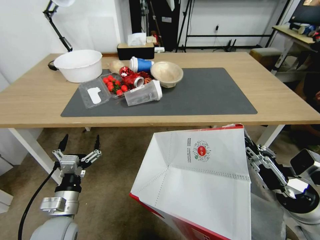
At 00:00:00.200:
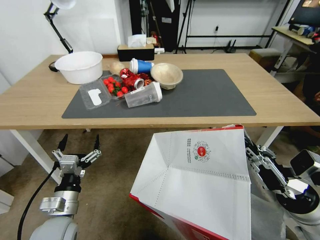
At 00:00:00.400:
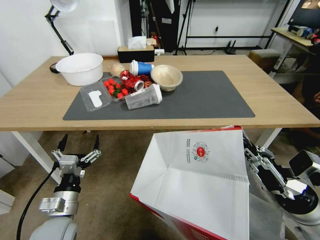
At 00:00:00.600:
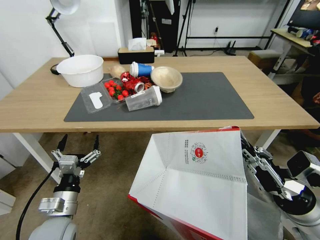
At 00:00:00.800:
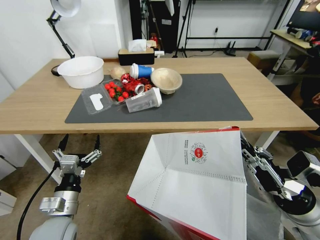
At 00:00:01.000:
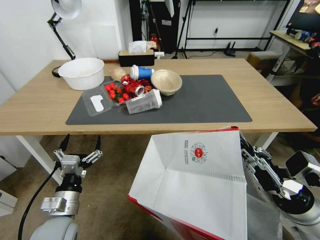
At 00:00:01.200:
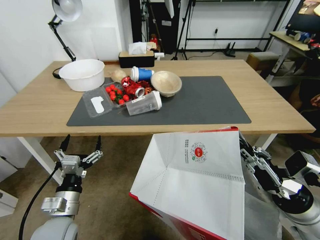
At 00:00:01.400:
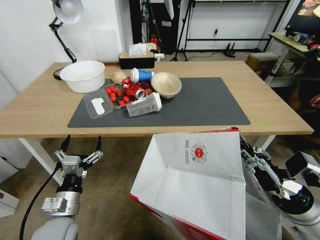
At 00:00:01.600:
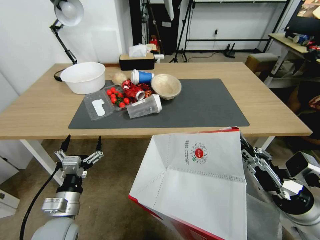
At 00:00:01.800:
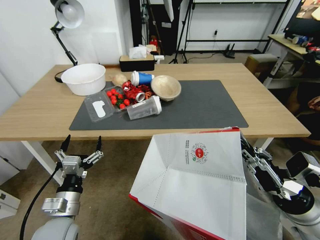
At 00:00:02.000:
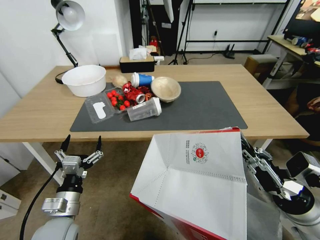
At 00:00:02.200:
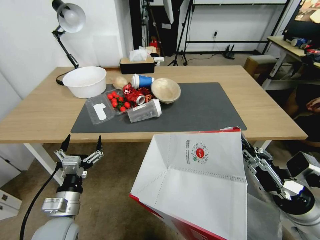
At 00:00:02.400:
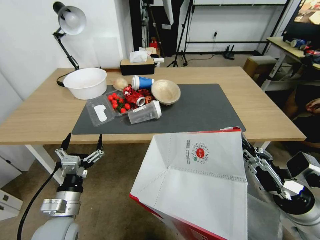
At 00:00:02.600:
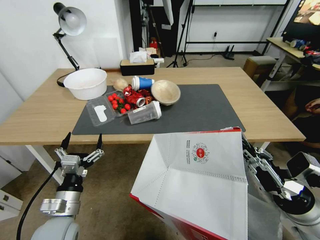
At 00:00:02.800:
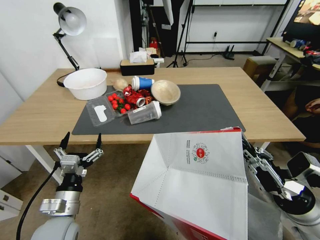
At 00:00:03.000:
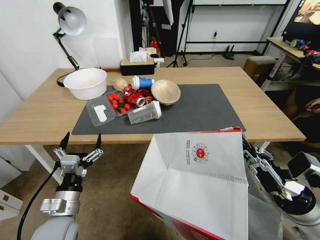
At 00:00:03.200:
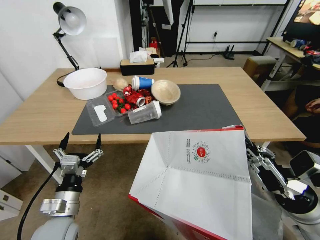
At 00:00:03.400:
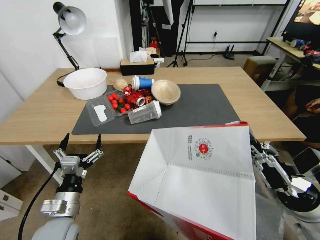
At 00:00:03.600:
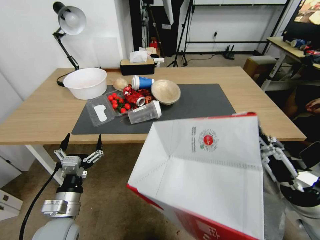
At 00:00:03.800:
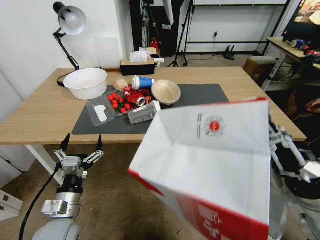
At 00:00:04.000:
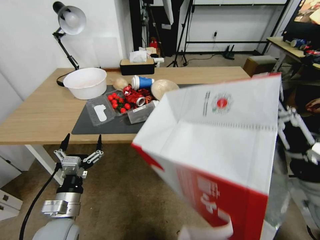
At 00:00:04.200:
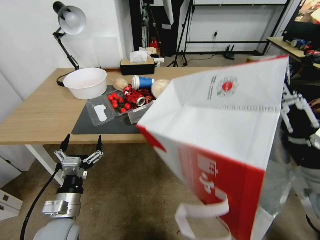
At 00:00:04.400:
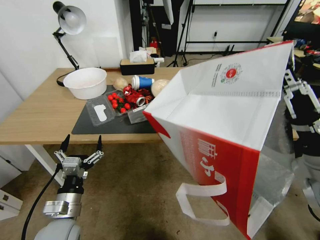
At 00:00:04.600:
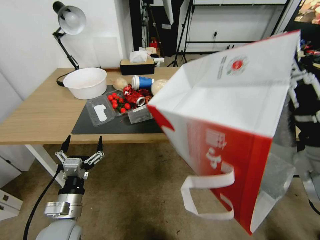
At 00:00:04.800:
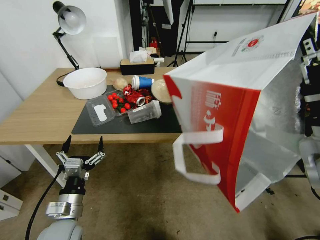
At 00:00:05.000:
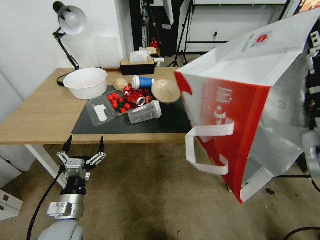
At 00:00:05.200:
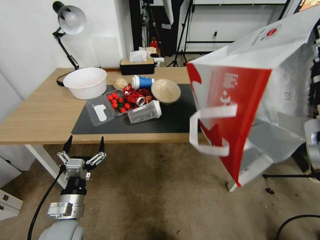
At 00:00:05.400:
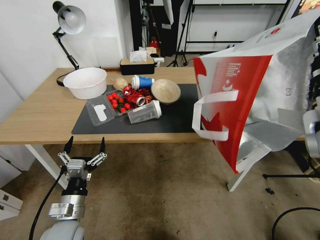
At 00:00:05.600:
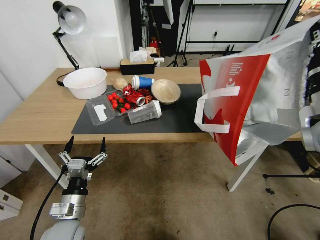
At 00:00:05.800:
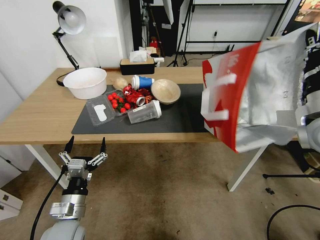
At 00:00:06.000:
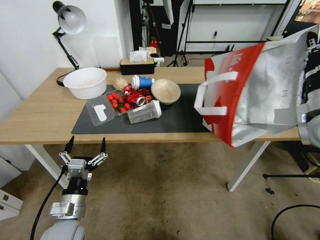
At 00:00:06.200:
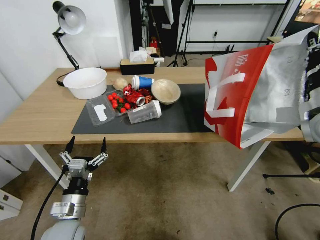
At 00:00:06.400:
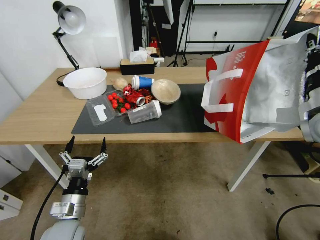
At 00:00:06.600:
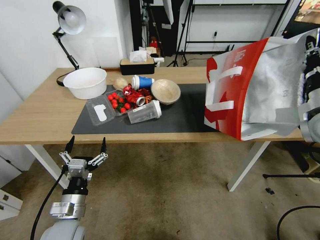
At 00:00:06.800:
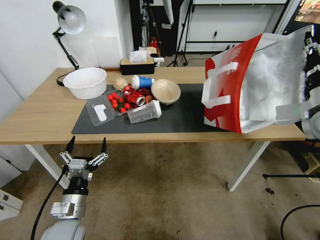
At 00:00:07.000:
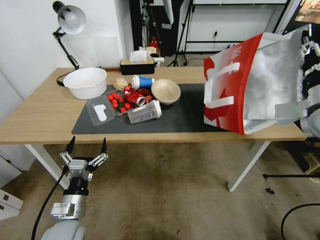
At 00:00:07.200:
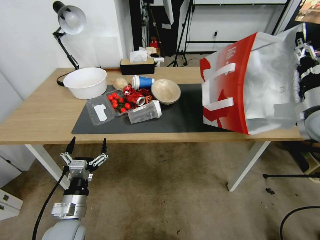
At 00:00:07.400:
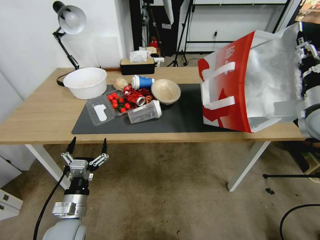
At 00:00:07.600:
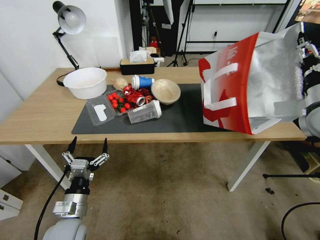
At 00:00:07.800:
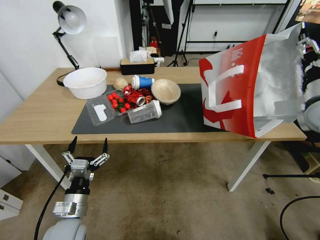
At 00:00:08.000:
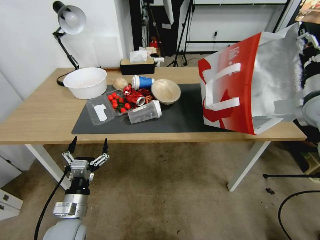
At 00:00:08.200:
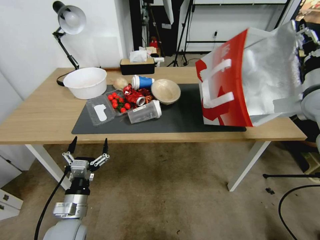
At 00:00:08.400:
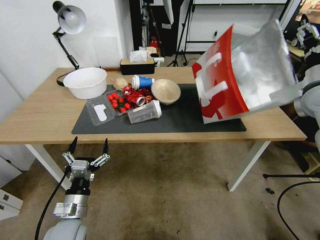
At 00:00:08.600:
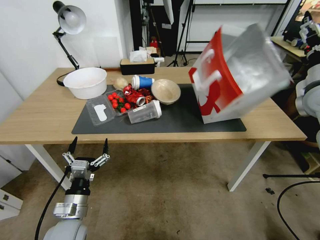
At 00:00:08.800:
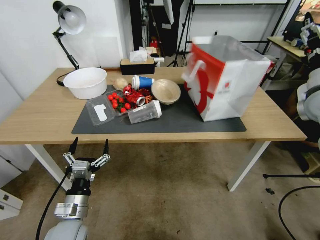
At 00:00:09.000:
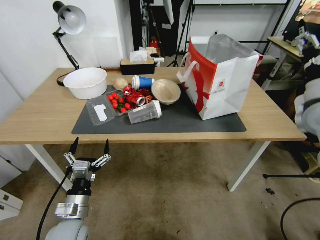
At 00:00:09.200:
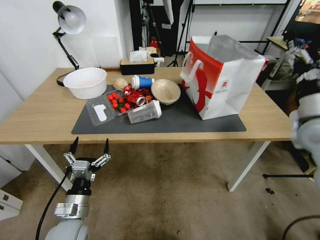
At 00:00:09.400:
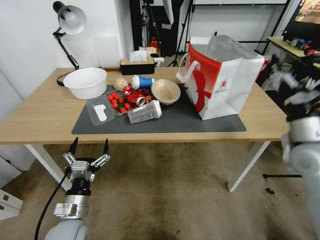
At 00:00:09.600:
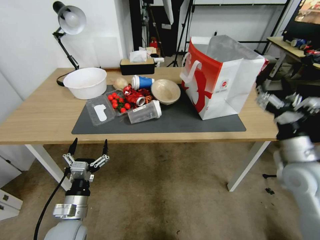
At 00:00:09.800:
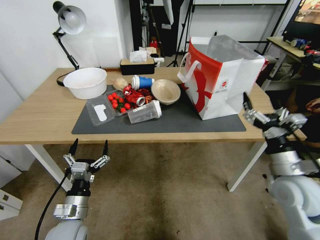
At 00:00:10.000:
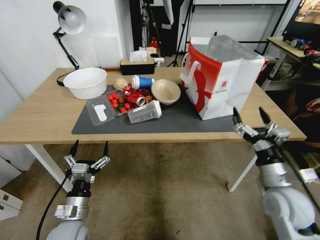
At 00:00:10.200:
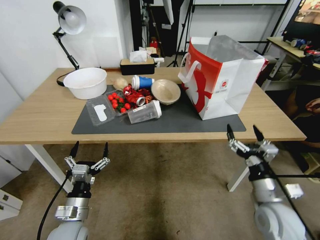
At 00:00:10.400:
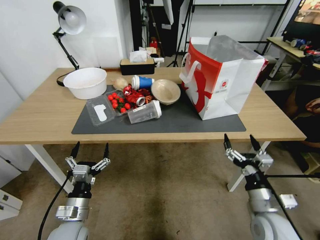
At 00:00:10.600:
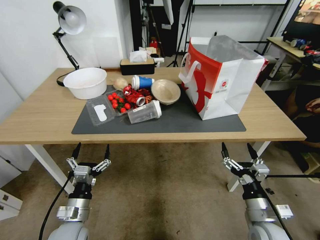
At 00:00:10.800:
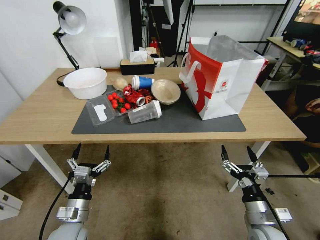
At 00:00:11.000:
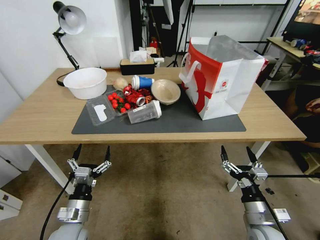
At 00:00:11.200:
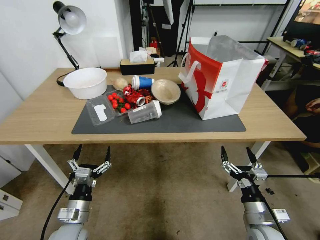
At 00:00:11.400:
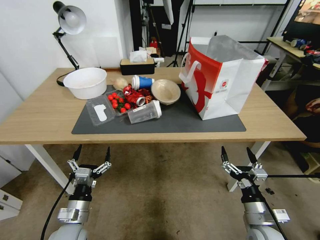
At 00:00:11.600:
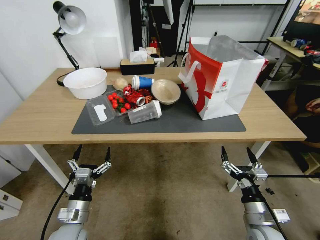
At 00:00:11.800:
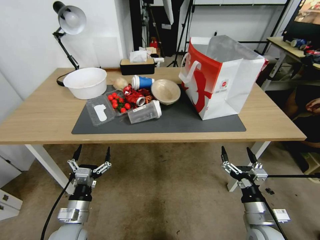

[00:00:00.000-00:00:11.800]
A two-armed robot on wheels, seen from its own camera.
Task of the whole recording: Pick up the food delivery bag from the floor and place it on the table.
00:00:03.000 to 00:00:04.400: The right gripper travels upward by roughly 10 cm.
00:00:04.400 to 00:00:06.000: The right gripper travels forward and to the right by approximately 15 cm.
00:00:06.000 to 00:00:07.400: The right gripper changes place by approximately 5 cm, and opens its fingers.
00:00:07.400 to 00:00:08.800: The grippers stay close to where they were, moving slightly.
00:00:08.800 to 00:00:10.400: The right gripper heads downward, backward and to the left, covering roughly 35 cm.
00:00:10.400 to 00:00:11.800: The grippers make only small movements.

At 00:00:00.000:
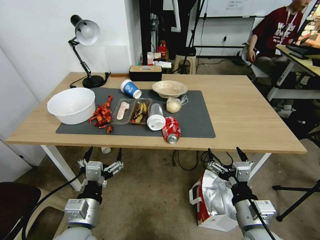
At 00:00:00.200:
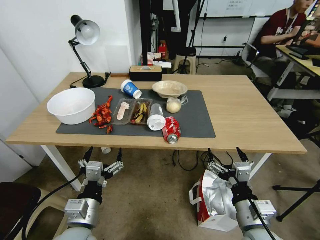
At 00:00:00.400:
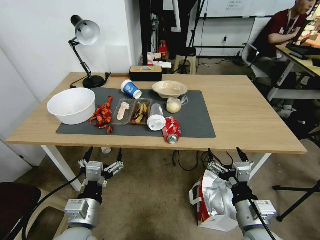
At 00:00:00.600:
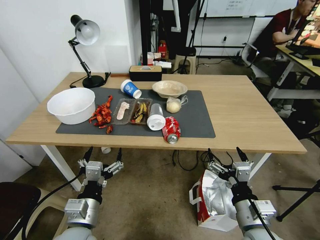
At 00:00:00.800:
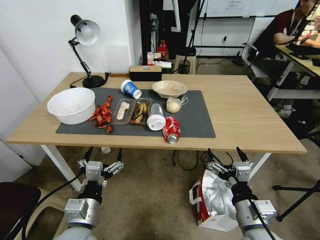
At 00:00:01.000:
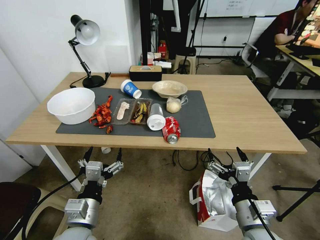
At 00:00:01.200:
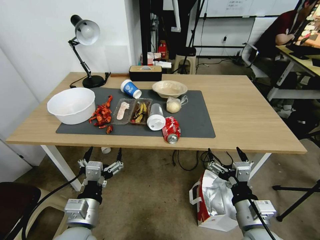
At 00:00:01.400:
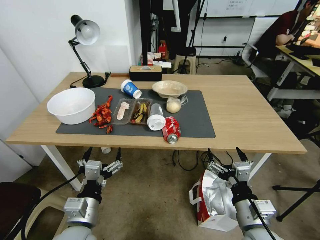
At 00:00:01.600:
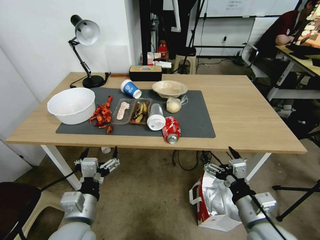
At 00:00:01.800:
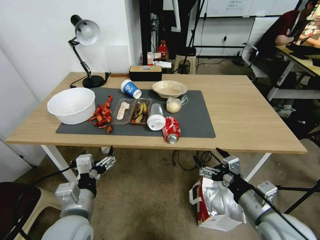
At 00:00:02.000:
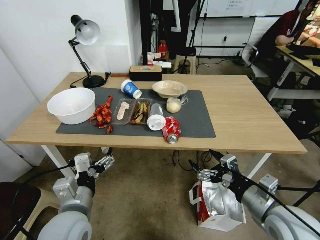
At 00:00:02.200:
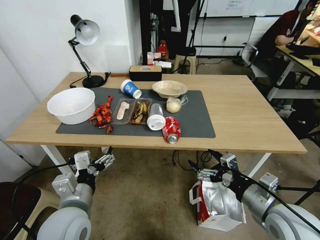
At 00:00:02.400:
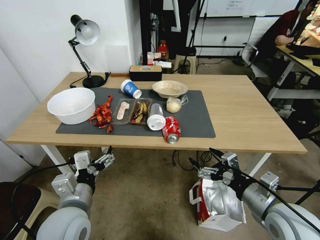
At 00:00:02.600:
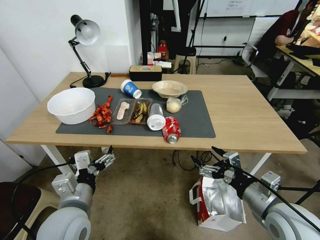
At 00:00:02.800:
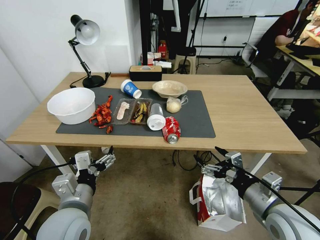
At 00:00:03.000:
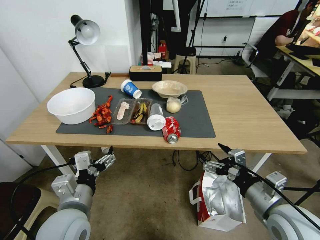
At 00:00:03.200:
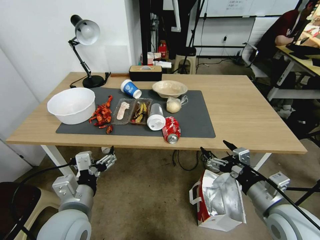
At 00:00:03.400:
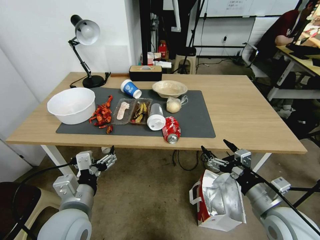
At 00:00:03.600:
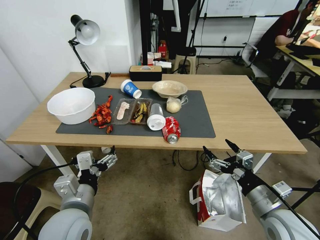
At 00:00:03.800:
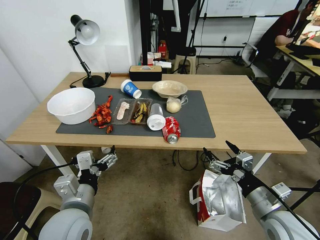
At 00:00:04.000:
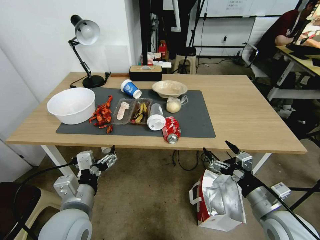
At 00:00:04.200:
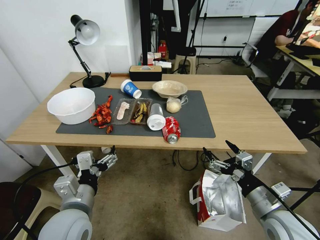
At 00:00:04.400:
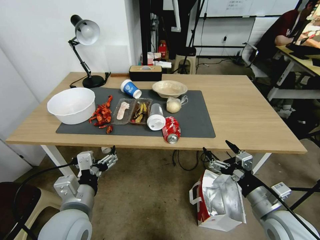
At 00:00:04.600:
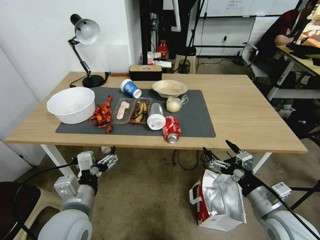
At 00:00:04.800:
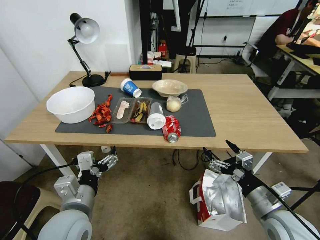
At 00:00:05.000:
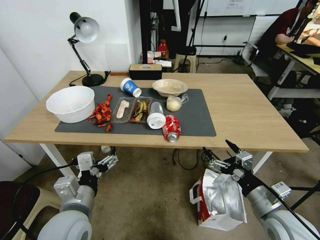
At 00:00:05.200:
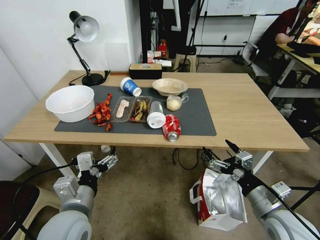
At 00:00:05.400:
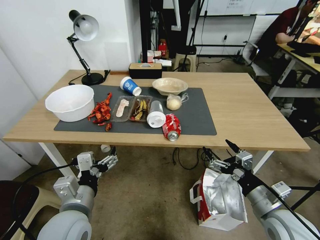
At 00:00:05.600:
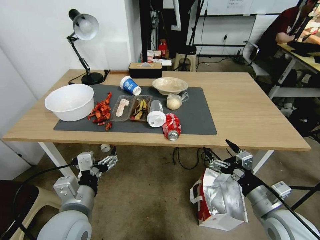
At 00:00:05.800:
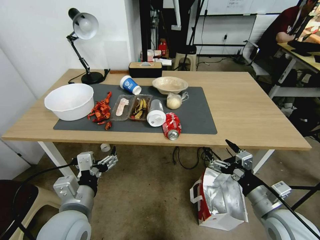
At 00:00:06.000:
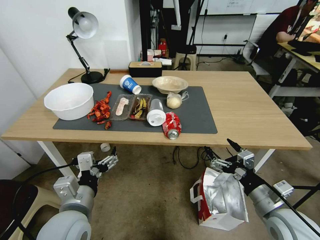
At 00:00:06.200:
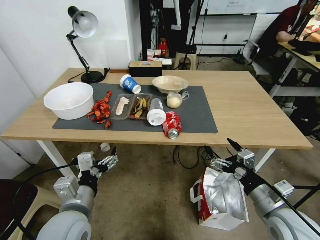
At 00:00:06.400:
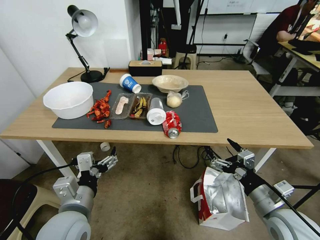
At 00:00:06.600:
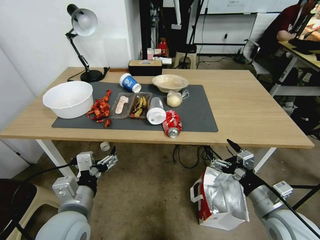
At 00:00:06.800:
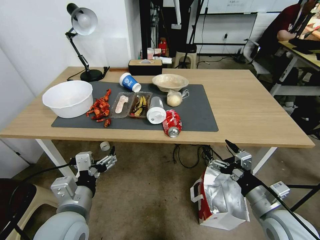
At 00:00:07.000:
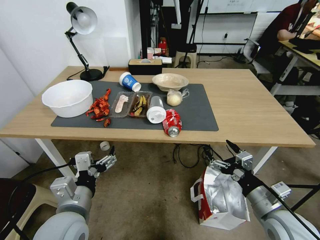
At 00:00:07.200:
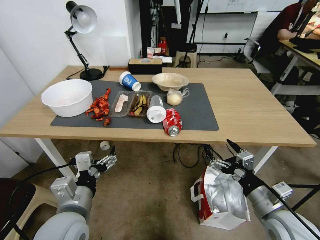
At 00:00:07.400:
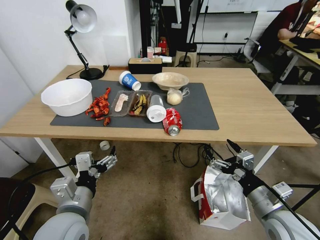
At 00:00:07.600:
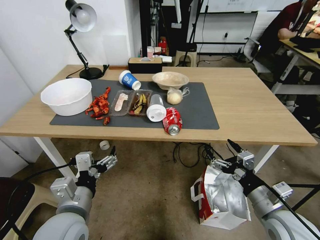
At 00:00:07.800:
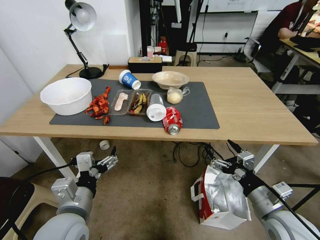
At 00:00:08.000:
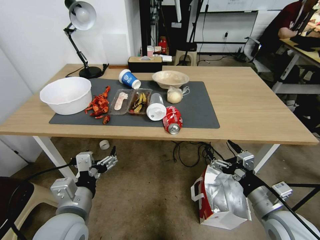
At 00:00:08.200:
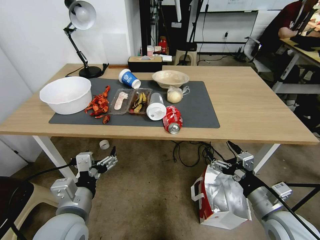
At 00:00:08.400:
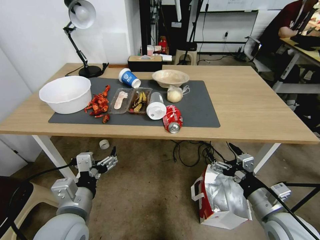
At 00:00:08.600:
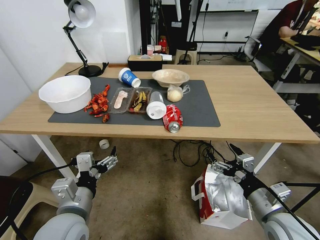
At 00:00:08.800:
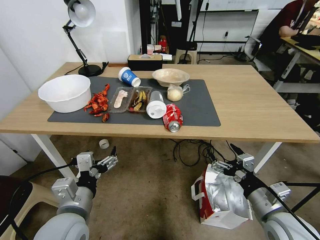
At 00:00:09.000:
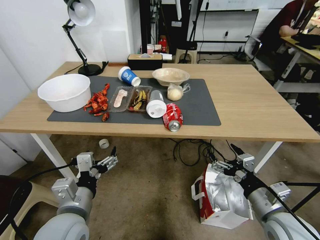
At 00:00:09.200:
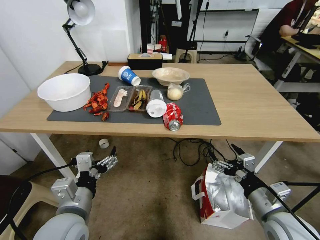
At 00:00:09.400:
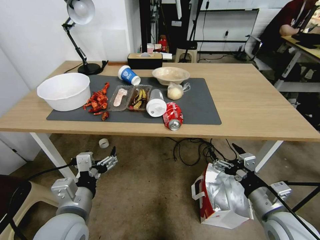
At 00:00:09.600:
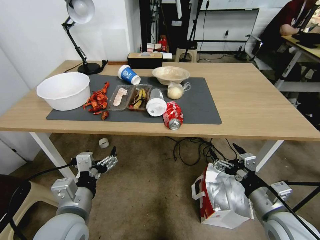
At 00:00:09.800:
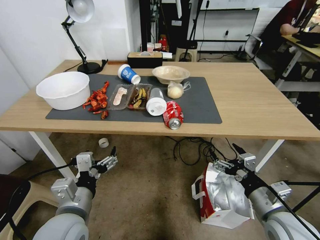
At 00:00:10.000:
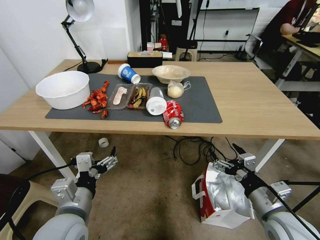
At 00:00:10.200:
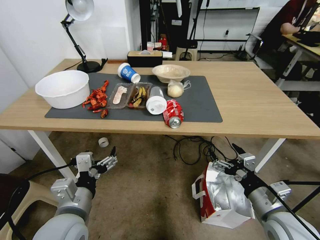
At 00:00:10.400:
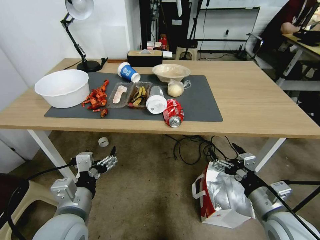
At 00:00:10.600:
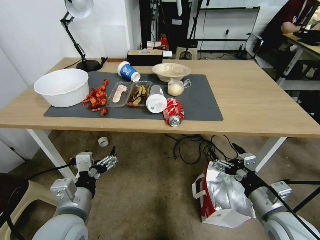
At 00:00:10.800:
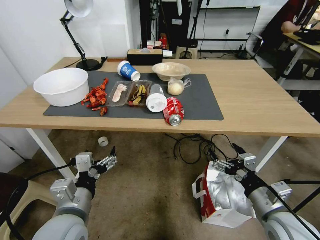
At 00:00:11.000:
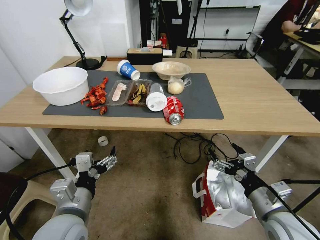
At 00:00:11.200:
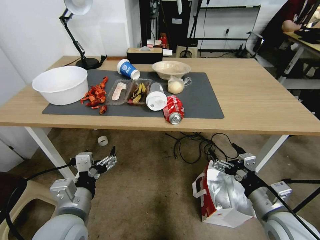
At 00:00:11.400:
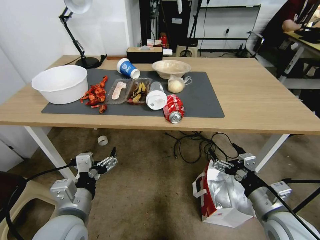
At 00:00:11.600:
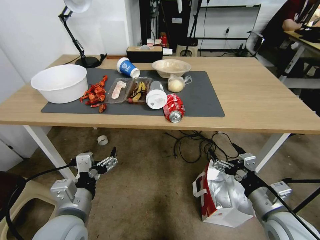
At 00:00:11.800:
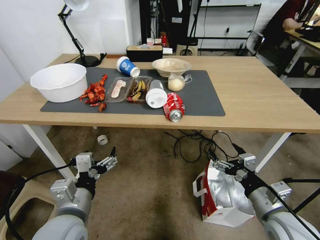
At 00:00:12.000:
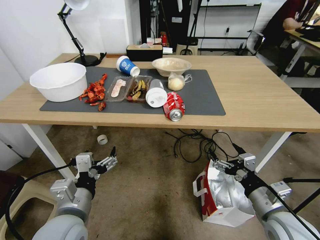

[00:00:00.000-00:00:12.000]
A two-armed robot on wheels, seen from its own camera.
Task of the whole recording: Pick up the food delivery bag from the floor and place it on the table.
00:00:01.600 to 00:00:03.000: The right gripper moves roughly 5 cm, while the left gripper shifts by about 5 cm.
00:00:03.000 to 00:00:04.400: There are only small adjustments of the grippers.
